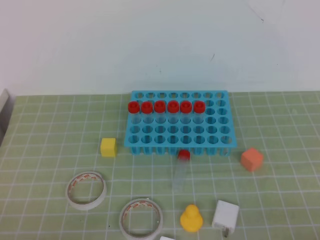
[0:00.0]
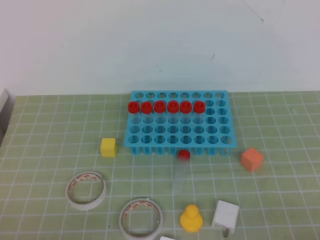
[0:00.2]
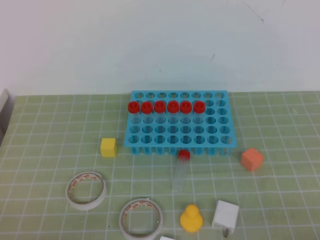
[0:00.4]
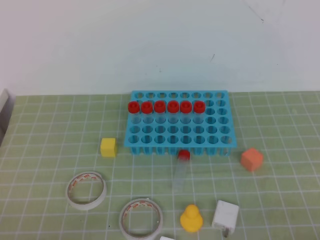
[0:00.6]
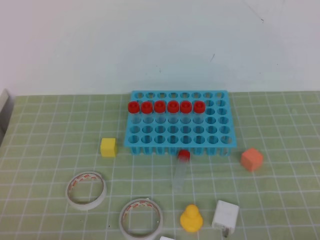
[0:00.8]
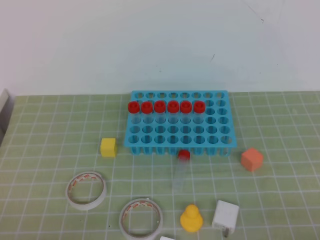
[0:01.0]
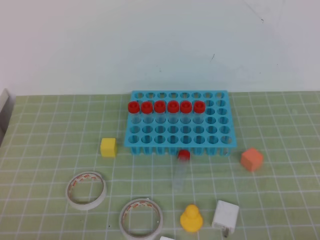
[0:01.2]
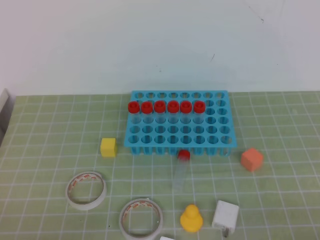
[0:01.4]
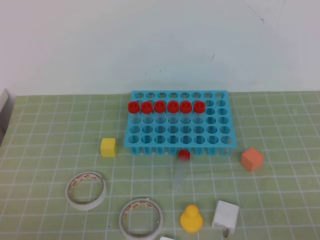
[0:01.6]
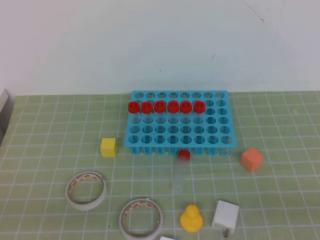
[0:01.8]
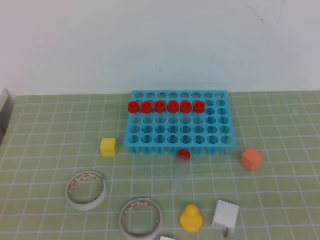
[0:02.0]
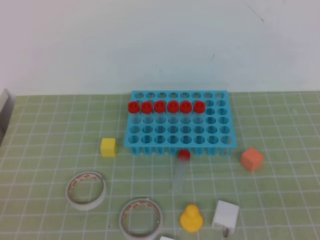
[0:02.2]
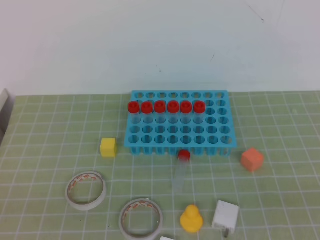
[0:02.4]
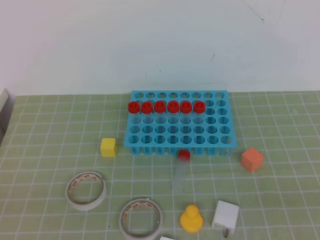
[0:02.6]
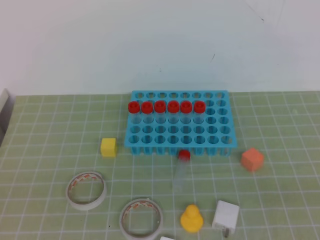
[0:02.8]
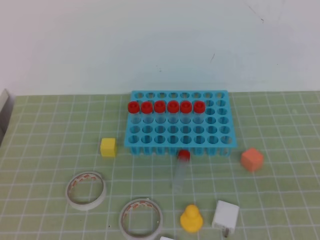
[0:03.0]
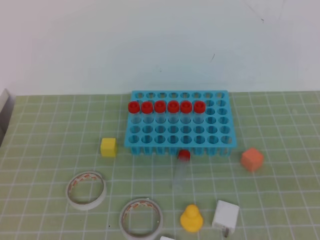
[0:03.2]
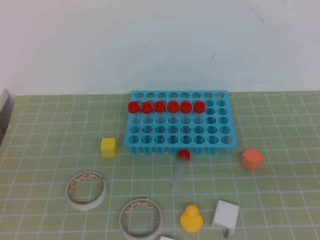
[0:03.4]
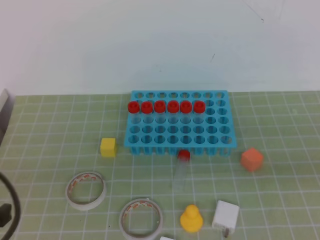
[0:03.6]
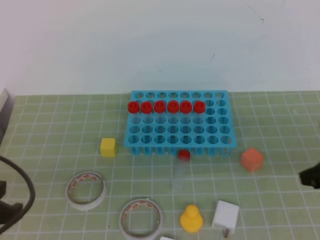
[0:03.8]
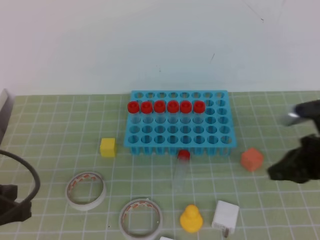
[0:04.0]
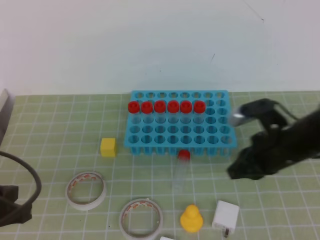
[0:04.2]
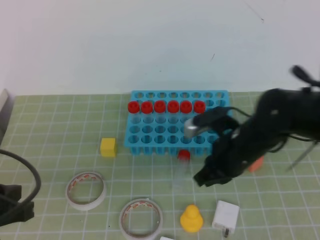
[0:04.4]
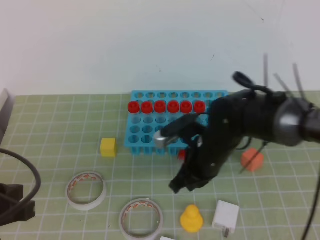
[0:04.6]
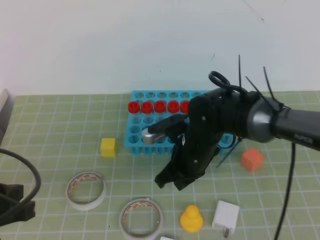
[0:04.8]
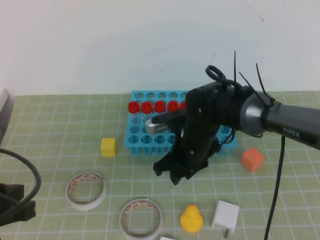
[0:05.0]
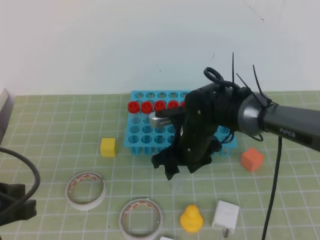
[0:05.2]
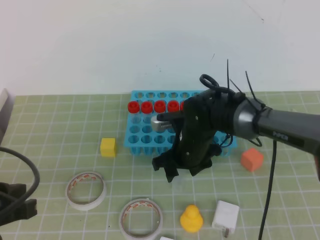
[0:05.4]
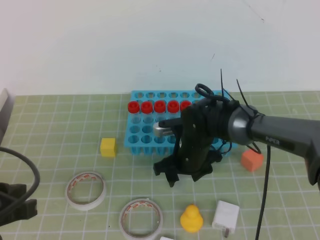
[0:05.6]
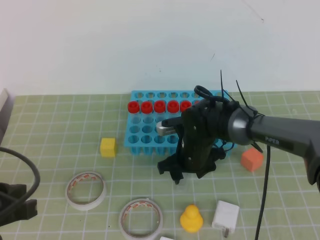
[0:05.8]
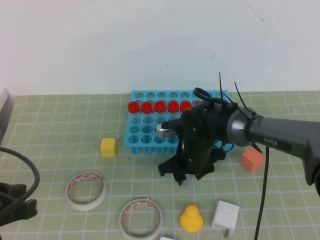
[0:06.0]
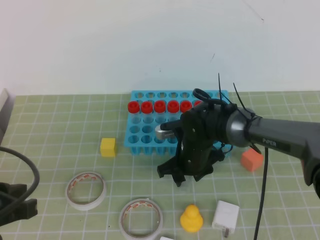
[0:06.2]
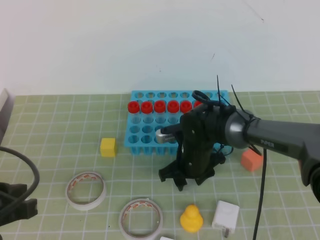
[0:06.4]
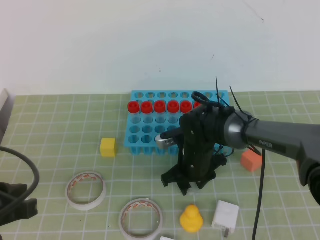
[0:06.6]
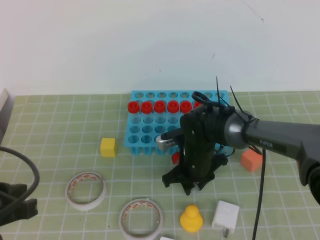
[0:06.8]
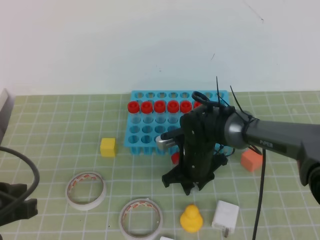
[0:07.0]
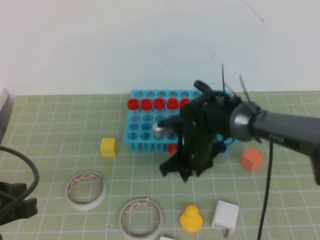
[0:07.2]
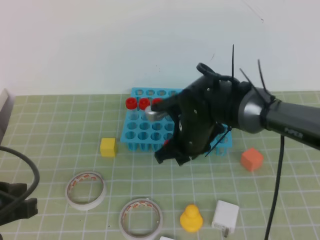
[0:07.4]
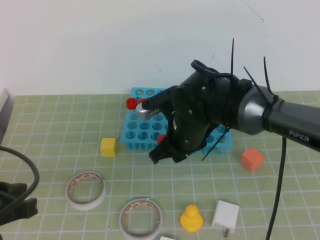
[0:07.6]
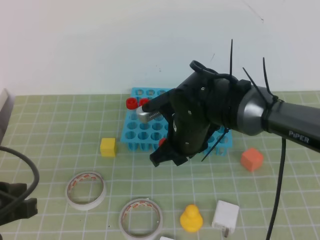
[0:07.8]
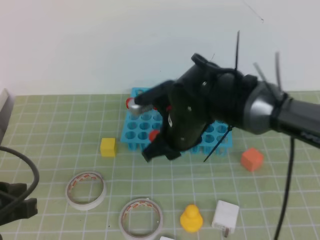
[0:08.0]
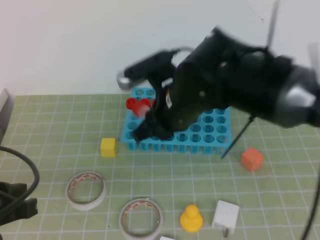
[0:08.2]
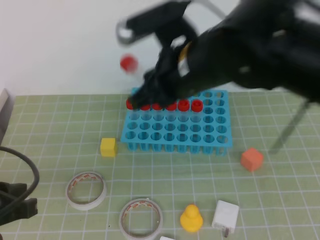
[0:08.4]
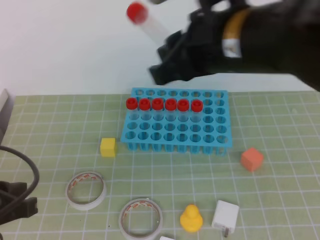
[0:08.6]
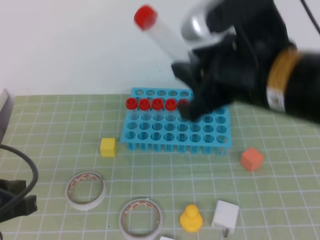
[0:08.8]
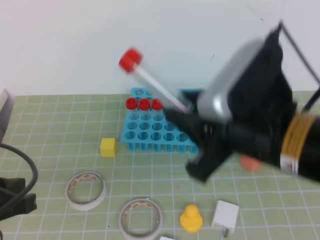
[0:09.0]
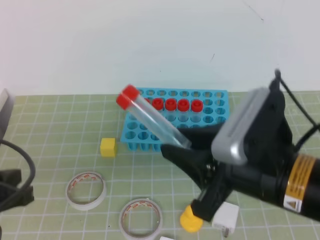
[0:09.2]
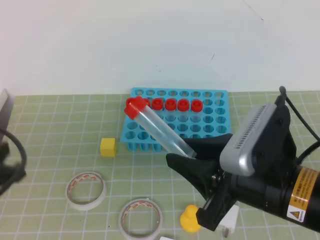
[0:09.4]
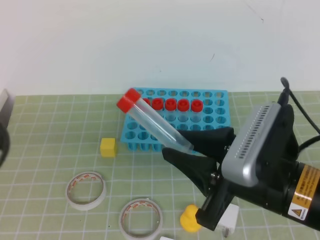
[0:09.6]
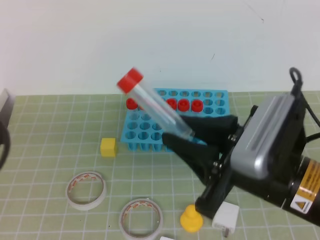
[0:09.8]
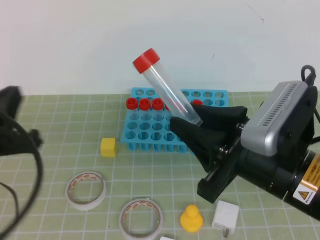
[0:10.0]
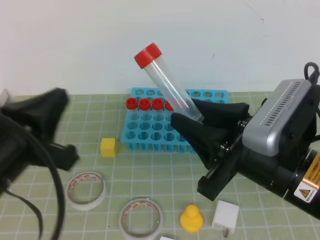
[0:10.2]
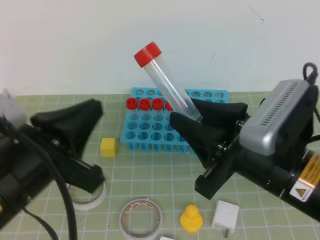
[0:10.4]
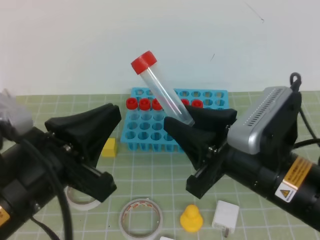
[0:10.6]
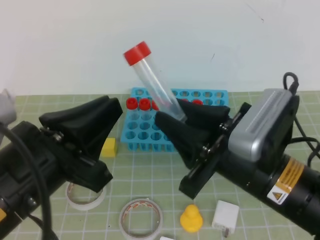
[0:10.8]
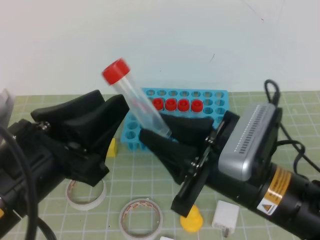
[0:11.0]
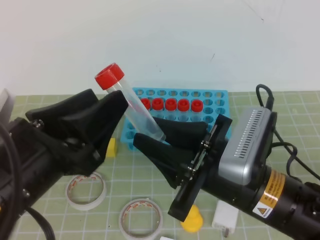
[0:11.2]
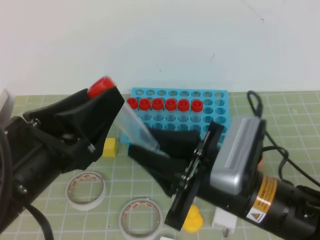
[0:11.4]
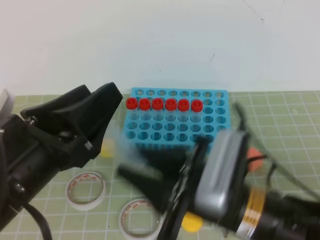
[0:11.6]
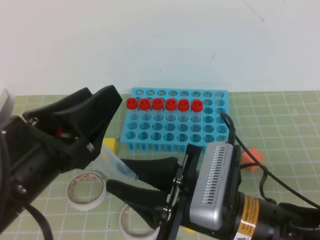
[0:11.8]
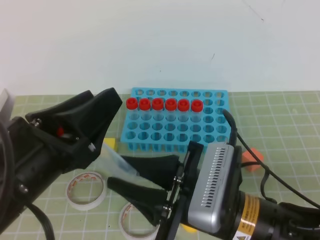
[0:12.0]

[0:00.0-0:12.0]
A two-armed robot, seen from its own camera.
0:03.0 to 0:04.4: The left gripper shifts roughly 15 cm forward and downward. The right gripper goes some 35 cm forward and to the left.
0:04.4 to 0:06.0: The right gripper travels to the left, downward and forward by some 15 cm, and opens up.
0:06.0 to 0:07.6: The right gripper moves upward, about 10 cm, and closes its fingers.
0:07.6 to 0:09.0: The right gripper goes roughly 20 cm backward and upward.
0:09.0 to 0:10.4: The left gripper goes about 10 cm to the right and upward; the right gripper changes place by approximately 5 cm.
0:10.4 to 0:12.0: The right gripper is displaced to the left and downward by about 10 cm. Meanwhile the left gripper opens.

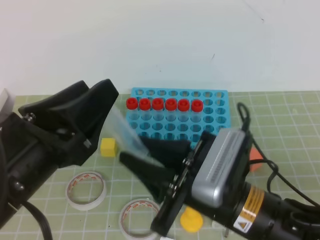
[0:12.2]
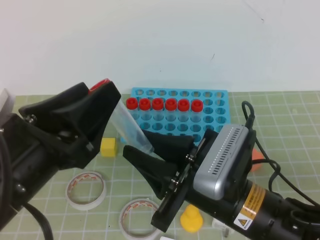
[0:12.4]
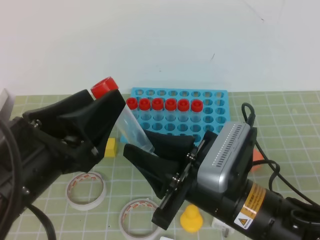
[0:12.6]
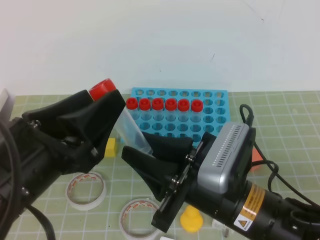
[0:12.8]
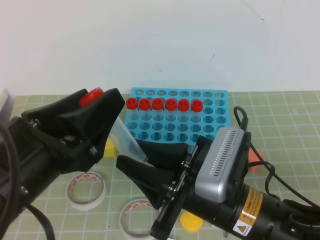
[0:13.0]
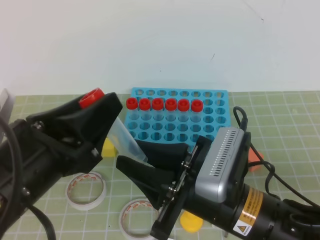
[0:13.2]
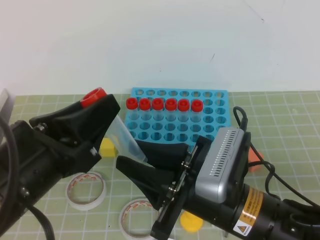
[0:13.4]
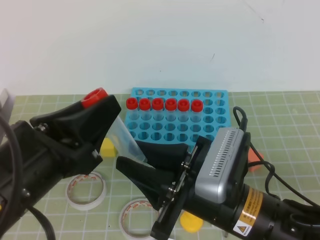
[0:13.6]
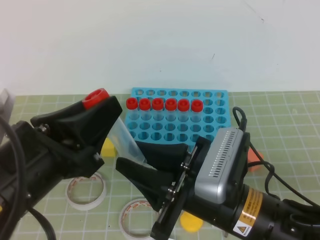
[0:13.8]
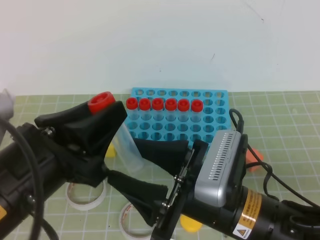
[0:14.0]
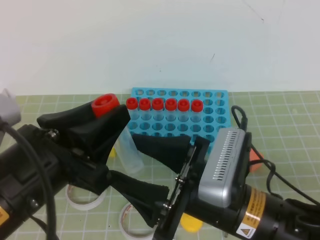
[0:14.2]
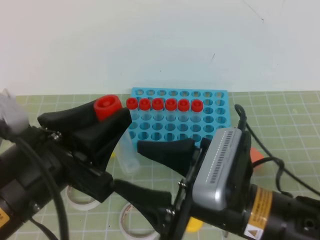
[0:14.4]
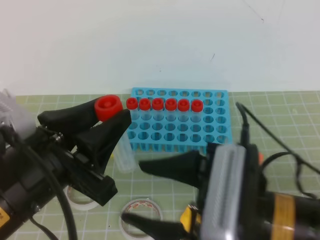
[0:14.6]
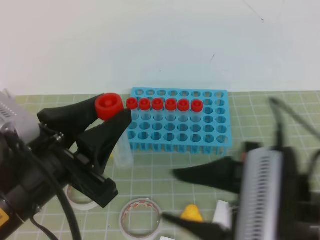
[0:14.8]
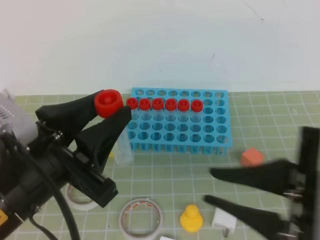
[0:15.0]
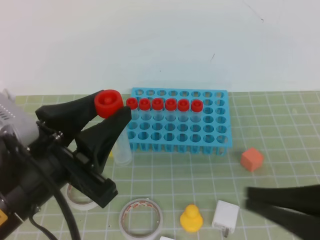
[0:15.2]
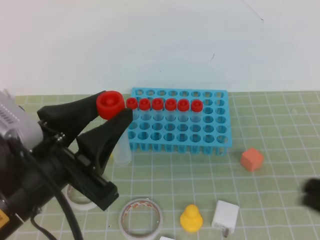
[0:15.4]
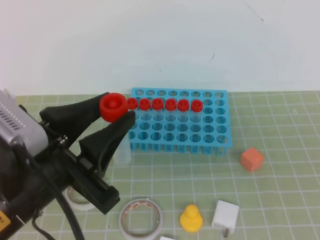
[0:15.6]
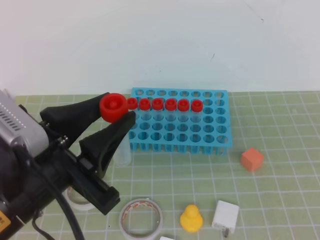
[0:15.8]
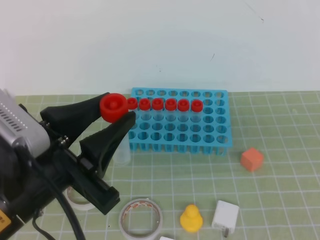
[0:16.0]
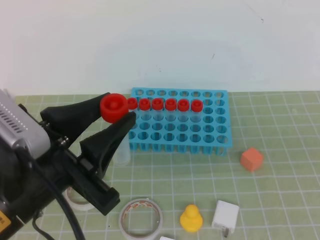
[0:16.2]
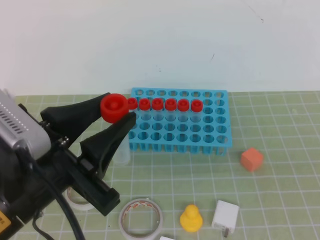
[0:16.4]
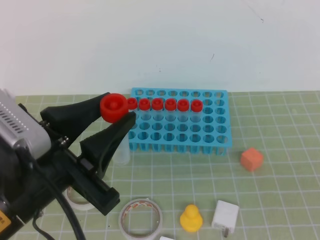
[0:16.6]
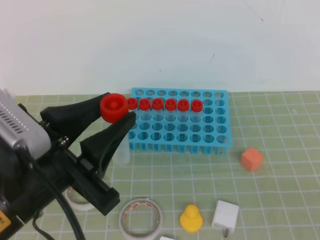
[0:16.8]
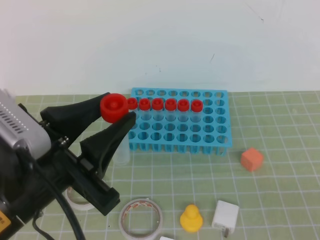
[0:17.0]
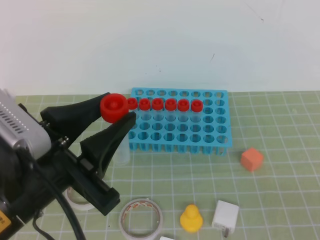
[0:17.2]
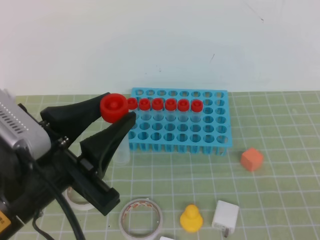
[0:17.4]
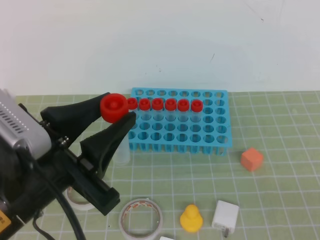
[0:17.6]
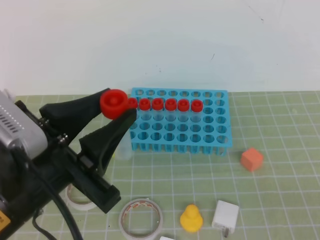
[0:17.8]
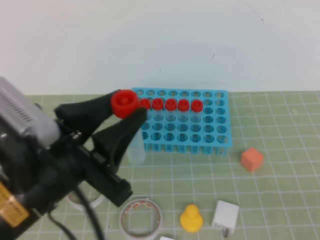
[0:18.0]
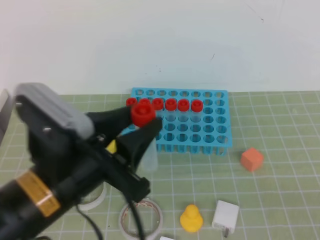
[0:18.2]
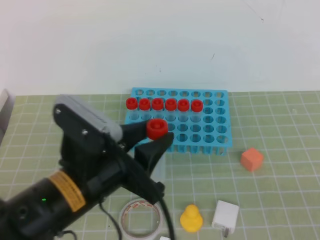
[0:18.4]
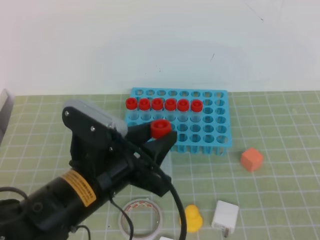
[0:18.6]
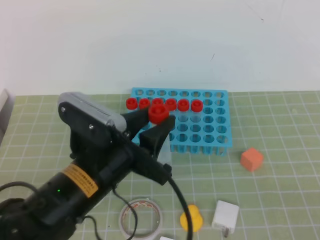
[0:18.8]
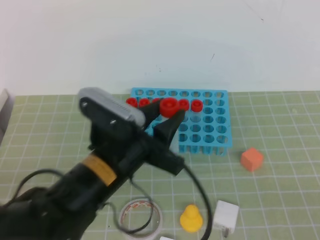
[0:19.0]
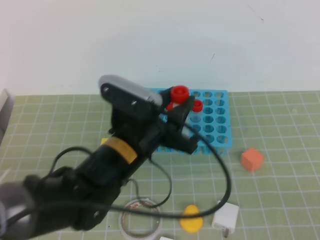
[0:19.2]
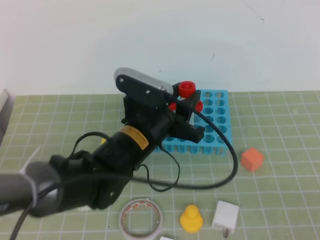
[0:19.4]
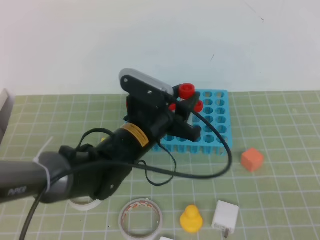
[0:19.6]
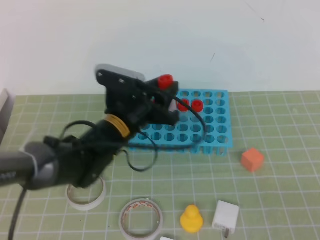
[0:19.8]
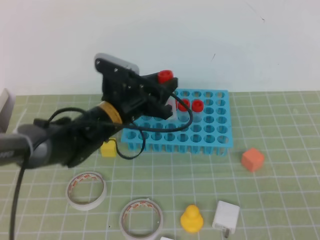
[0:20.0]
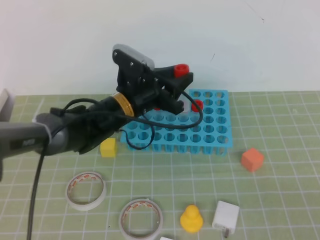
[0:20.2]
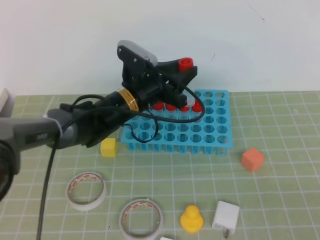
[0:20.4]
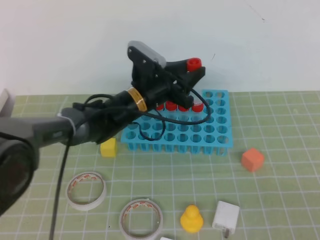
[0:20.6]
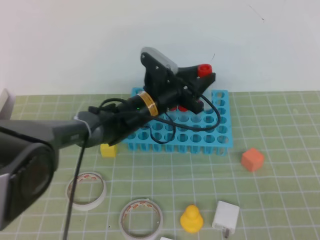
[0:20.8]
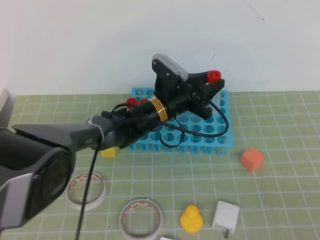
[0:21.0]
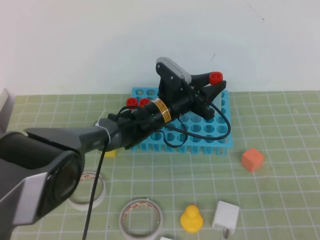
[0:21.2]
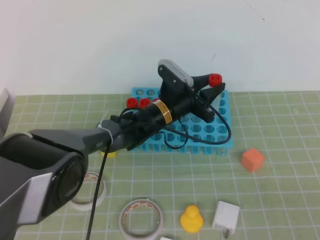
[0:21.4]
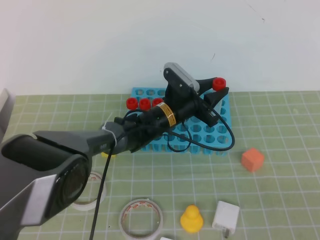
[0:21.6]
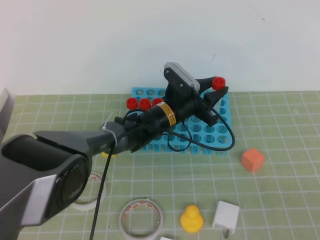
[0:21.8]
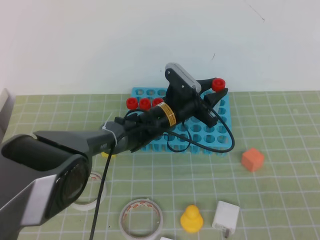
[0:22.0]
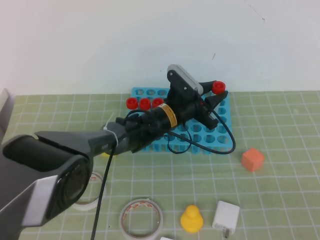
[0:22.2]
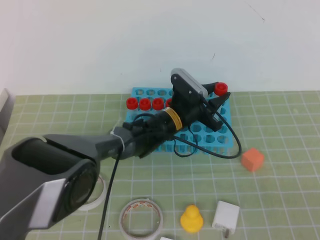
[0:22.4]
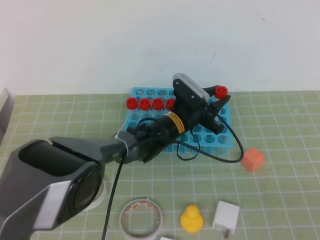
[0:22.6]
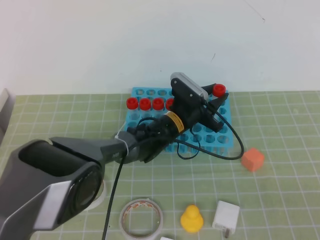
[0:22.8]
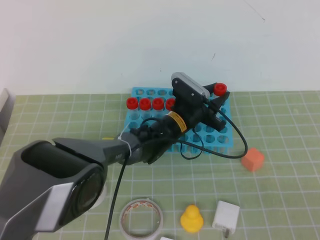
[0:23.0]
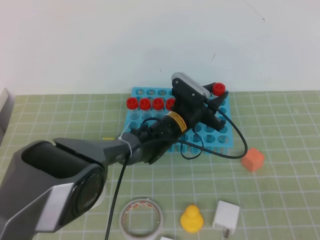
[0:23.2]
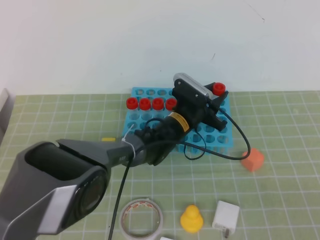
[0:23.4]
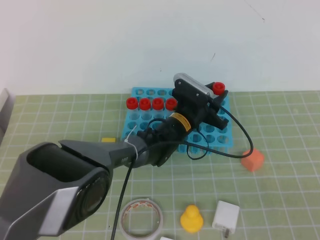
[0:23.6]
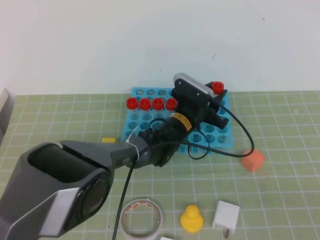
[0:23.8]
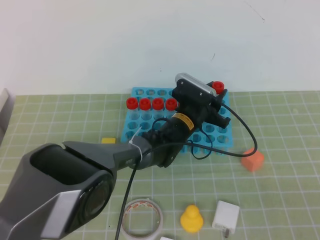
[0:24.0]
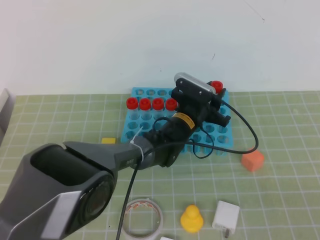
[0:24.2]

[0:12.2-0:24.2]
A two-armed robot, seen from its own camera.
0:12.2 to 0:13.8: There are only small adjustments of the grippers.
0:13.8 to 0:15.2: The right gripper is displaced to the right, backward and upward by approximately 15 cm, and closes its fingers.
0:15.2 to 0:16.6: The right gripper travels to the right by roughly 15 cm.
0:16.6 to 0:18.2: The right gripper shifts by some 5 cm.
0:18.2 to 0:19.8: The left gripper shifts about 20 cm forward and downward.
0:19.8 to 0:21.2: The left gripper goes roughly 15 cm forward, to the right and downward.
0:21.2 to 0:22.6: There are only small adjustments of the grippers.
0:22.6 to 0:24.2: The grippers stay close to where they were, moving slightly.
